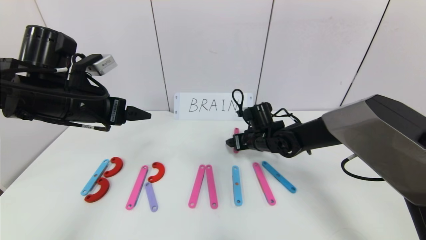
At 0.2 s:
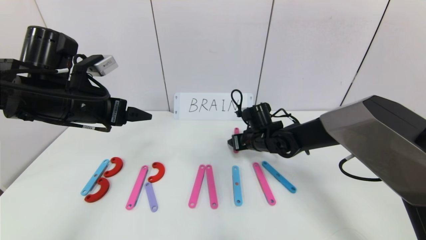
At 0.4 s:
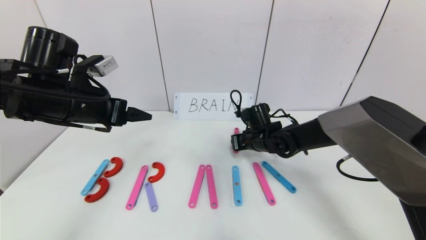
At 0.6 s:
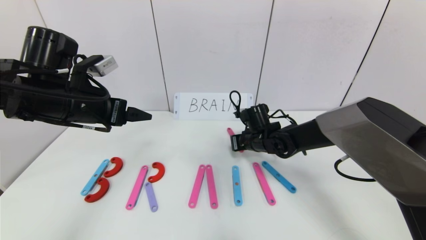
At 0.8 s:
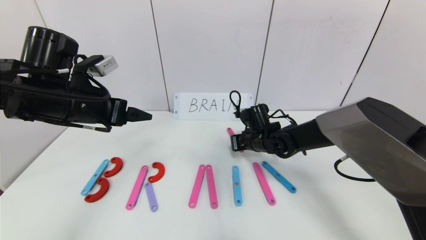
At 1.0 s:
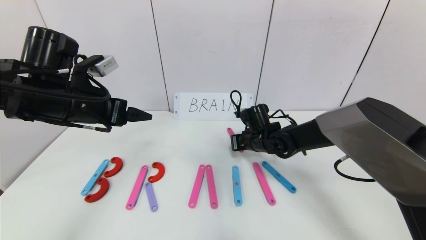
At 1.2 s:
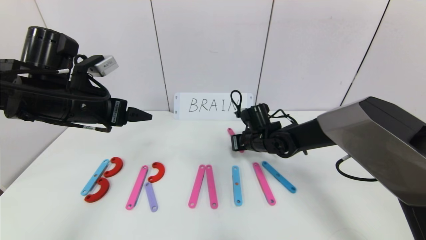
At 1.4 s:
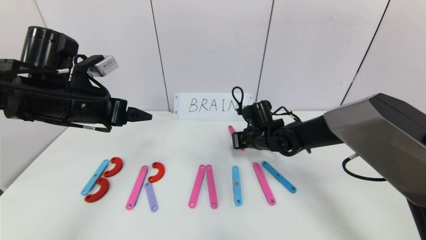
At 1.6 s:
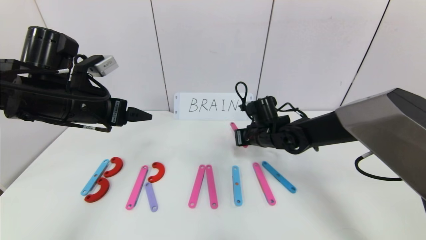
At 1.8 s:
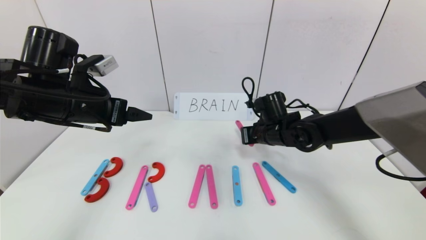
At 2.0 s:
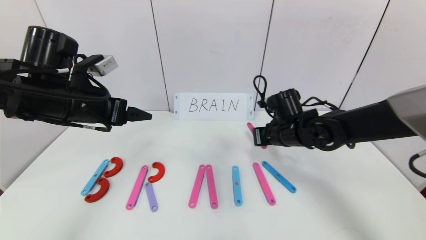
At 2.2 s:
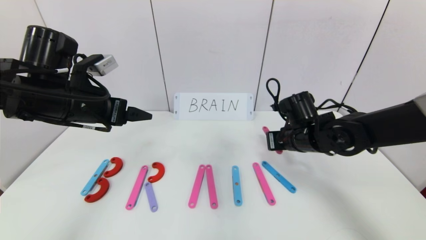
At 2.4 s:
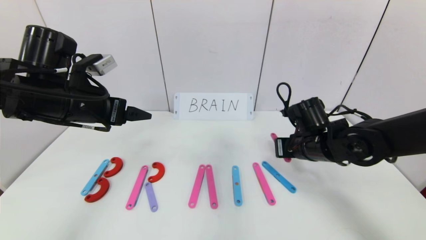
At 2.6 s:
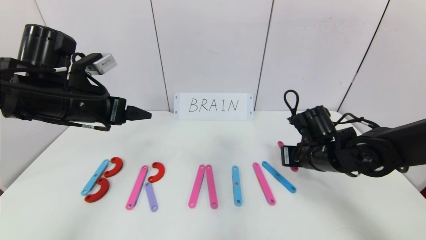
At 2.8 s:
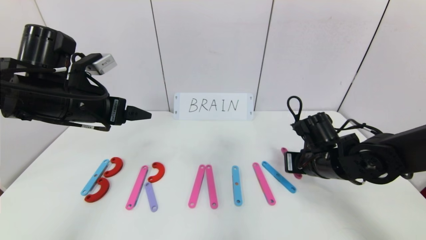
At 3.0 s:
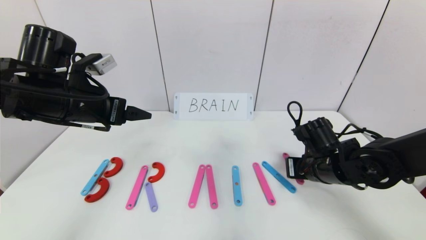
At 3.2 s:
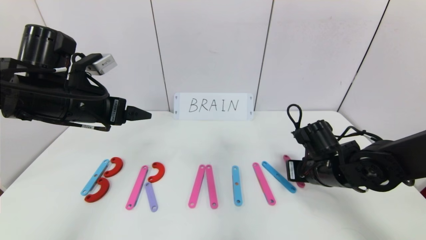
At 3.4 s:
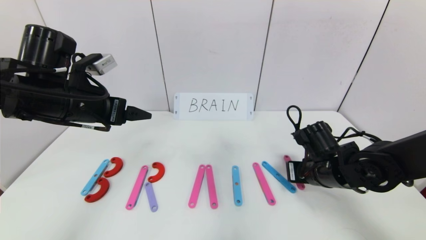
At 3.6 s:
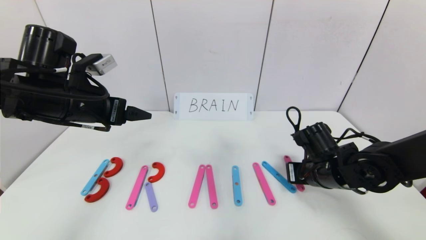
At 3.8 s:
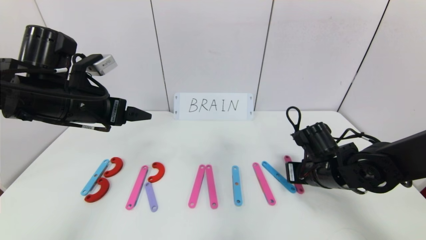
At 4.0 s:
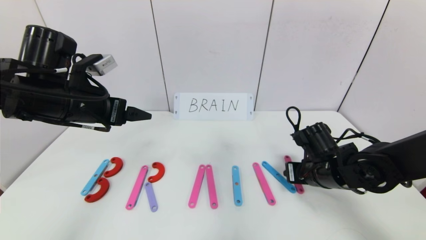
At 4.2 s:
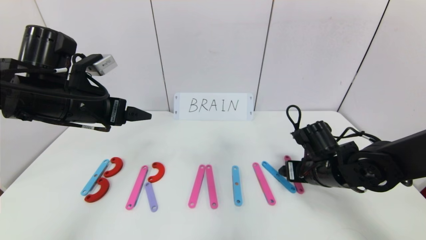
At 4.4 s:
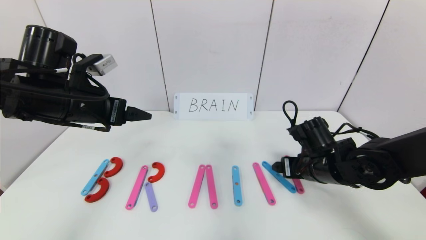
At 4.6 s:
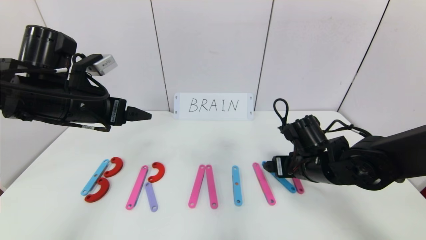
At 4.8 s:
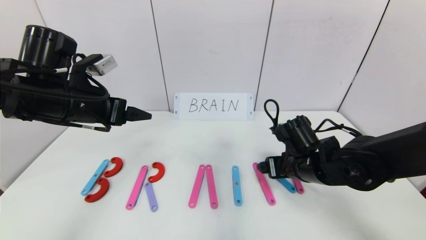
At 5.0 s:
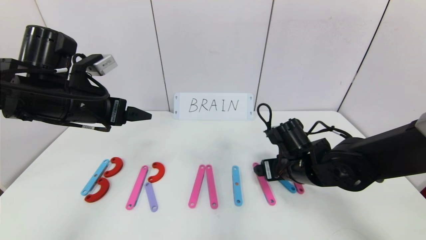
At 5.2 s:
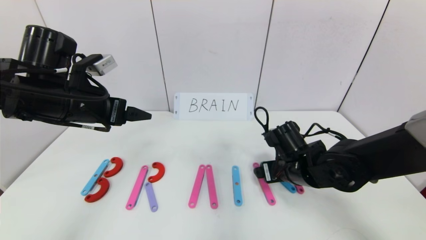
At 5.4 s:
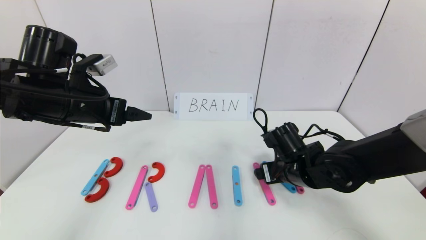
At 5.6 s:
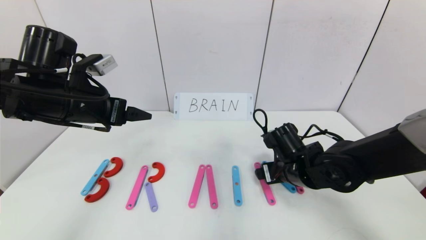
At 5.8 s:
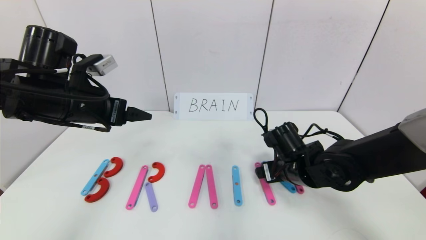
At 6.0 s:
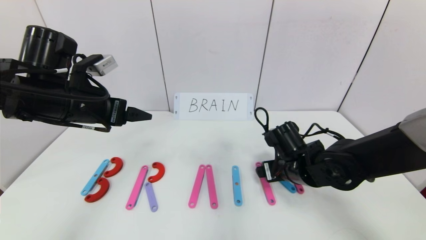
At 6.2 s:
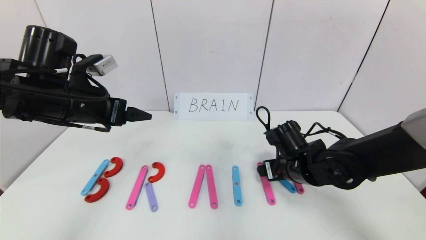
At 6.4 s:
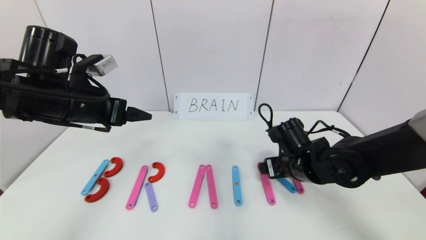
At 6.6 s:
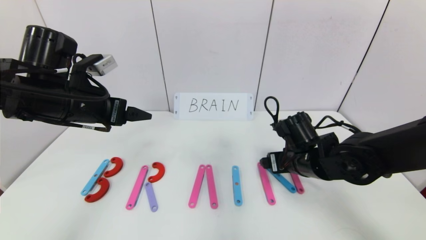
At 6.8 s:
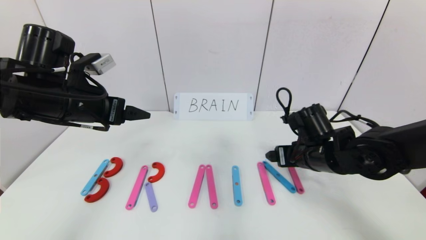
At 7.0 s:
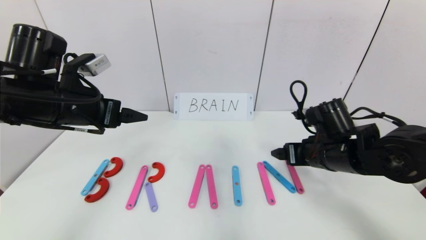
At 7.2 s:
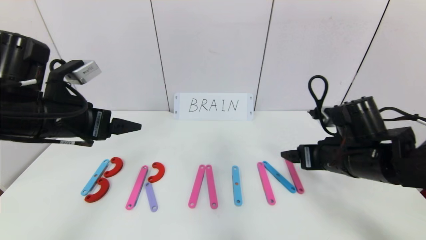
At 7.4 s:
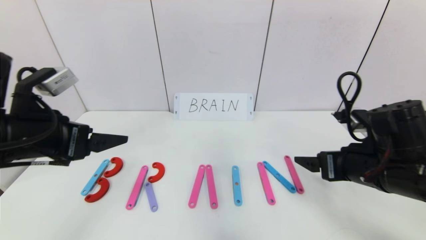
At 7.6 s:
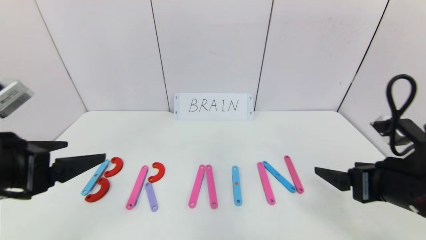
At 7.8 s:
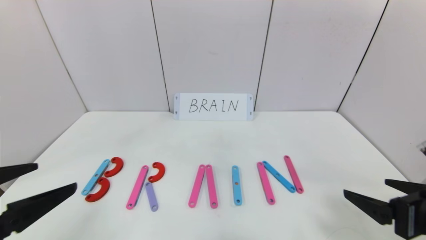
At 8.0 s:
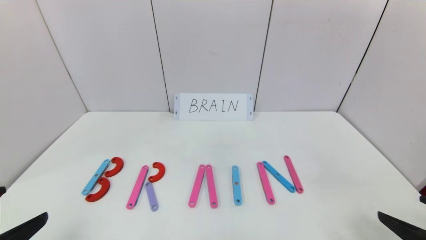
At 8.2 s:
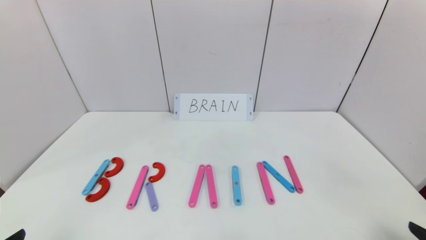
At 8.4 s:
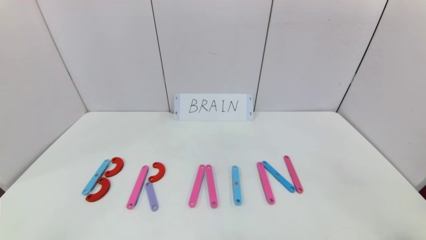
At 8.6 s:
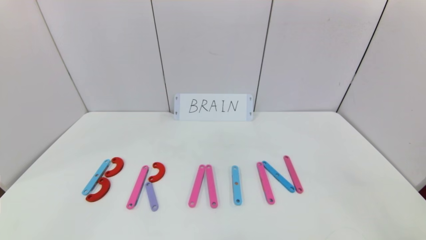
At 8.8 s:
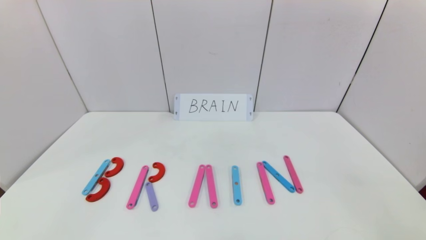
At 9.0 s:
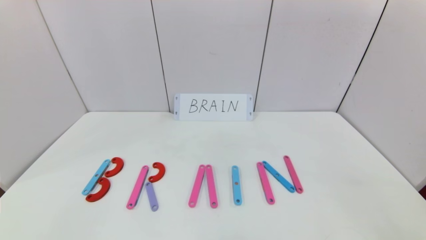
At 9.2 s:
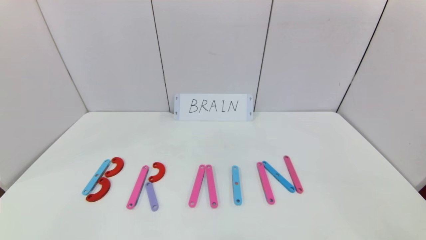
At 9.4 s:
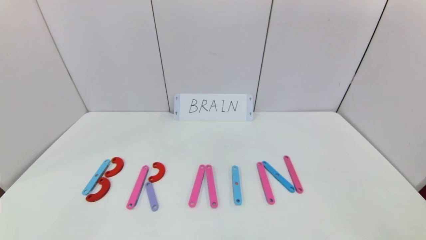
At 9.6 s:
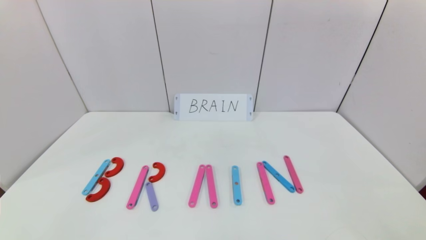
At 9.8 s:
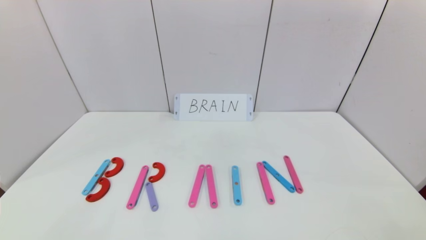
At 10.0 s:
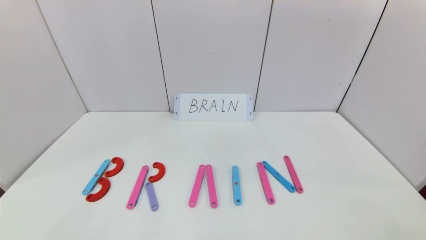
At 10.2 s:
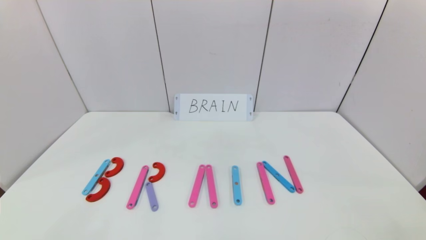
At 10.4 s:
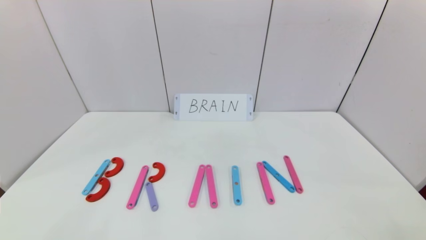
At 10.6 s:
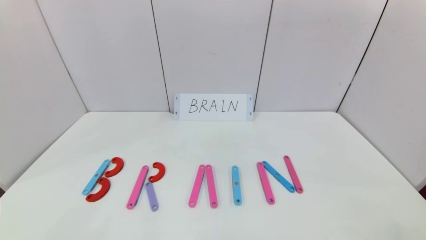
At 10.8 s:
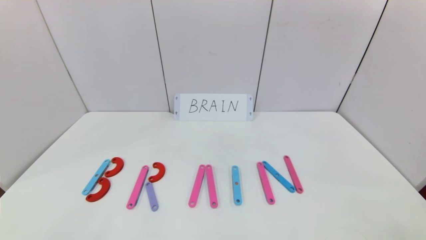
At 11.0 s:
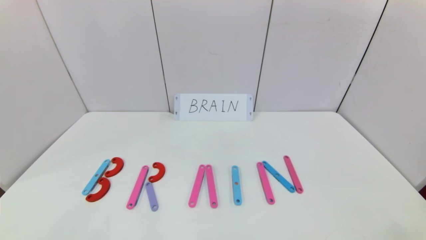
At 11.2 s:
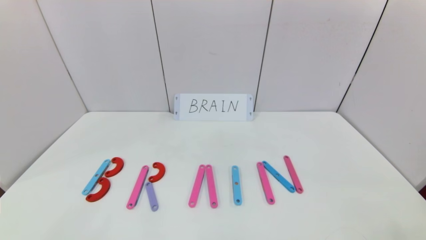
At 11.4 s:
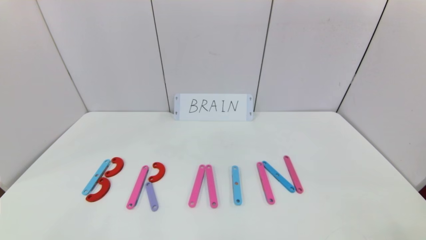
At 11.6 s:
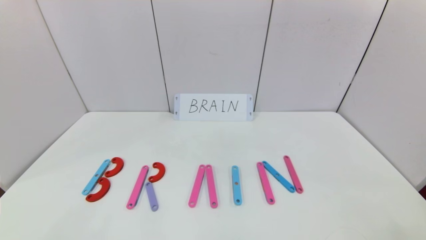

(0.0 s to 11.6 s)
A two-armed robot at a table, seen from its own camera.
Task of the whole recording: rearrange the word baai as brain.
Step, 0.0 s - 6.4 s: Place the character N after character I.
0.0 s - 1.4 s: The right gripper closes its fingers.
1.4 s - 2.8 s: The right gripper travels backward and to the right by about 15 cm.
2.8 s - 4.4 s: The right gripper opens its fingers.
4.4 s - 5.8 s: The grippers move only a little.
5.8 s - 7.2 s: The right gripper is displaced upward and to the right by roughly 10 cm.
7.2 s - 8.8 s: The right gripper is displaced backward and to the right by some 30 cm; the left gripper travels backward by roughly 30 cm.

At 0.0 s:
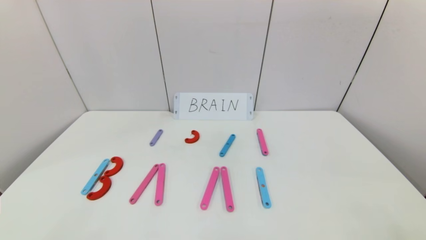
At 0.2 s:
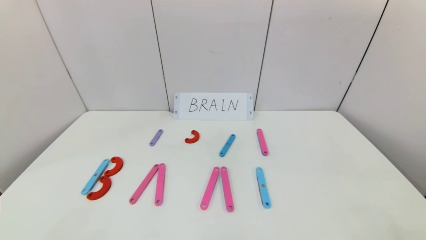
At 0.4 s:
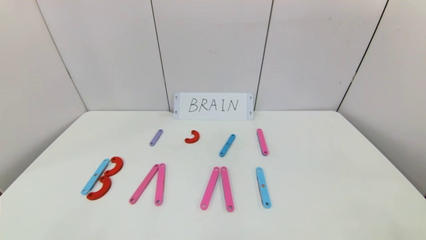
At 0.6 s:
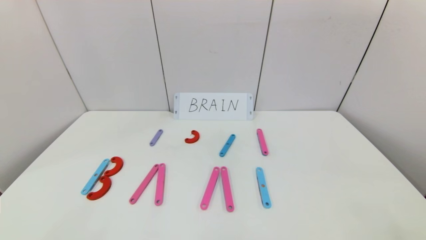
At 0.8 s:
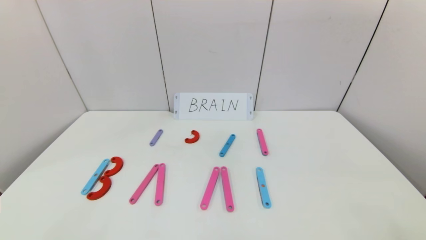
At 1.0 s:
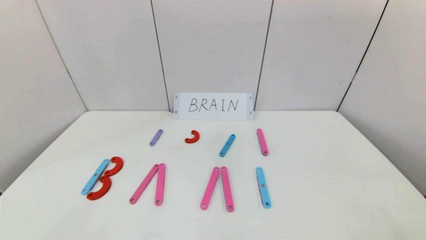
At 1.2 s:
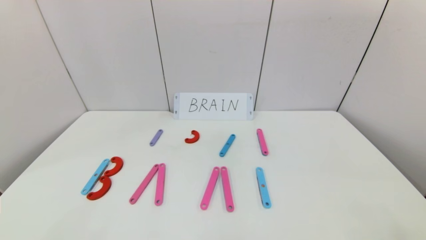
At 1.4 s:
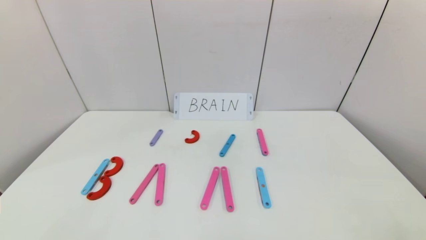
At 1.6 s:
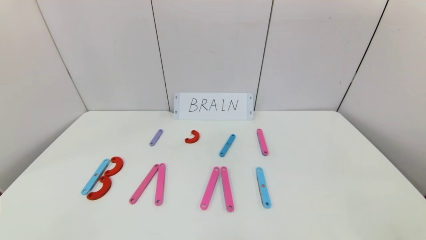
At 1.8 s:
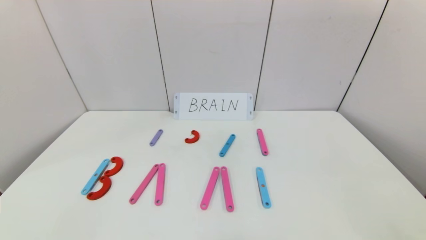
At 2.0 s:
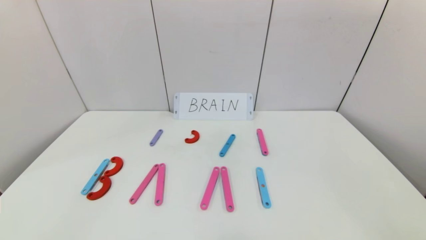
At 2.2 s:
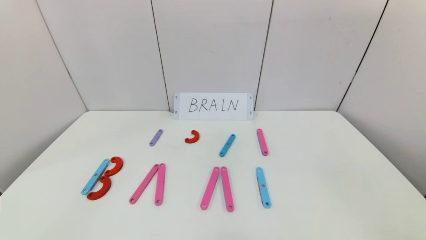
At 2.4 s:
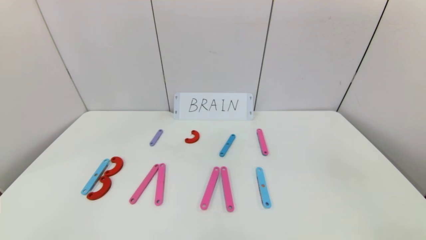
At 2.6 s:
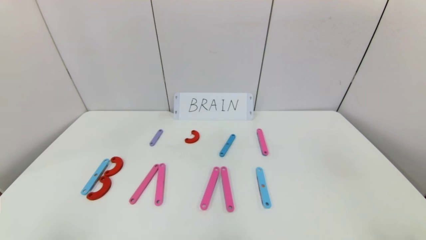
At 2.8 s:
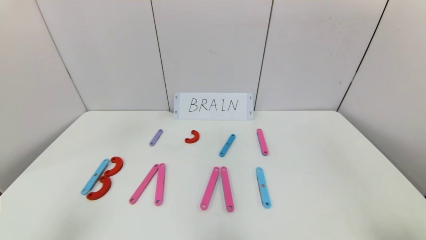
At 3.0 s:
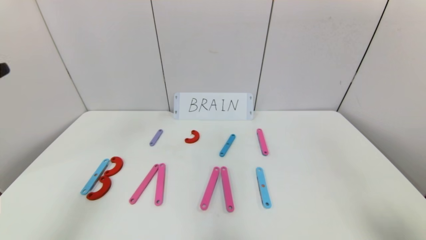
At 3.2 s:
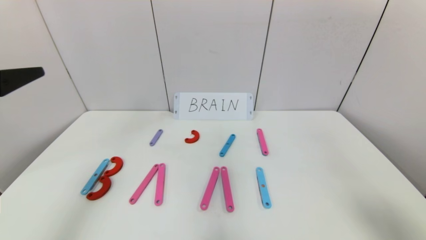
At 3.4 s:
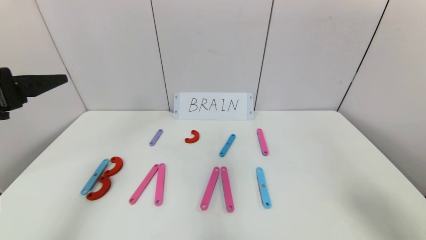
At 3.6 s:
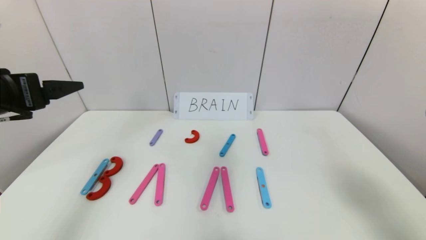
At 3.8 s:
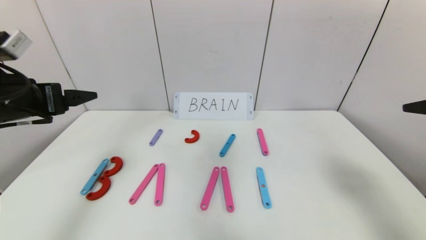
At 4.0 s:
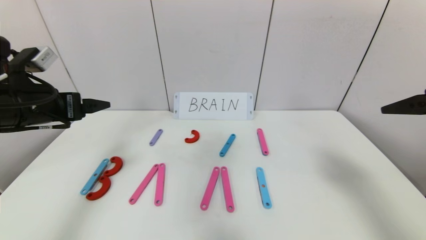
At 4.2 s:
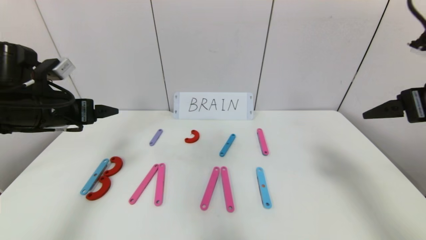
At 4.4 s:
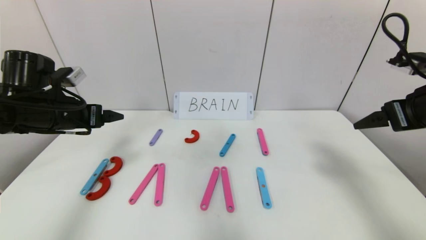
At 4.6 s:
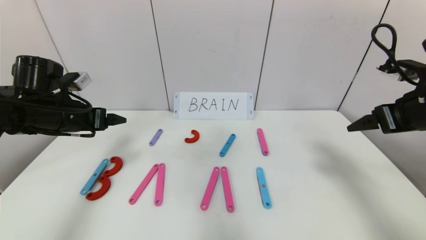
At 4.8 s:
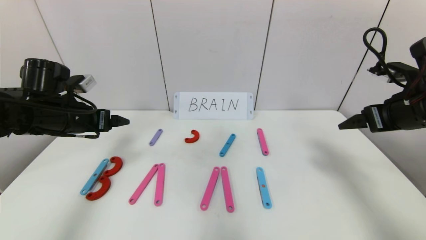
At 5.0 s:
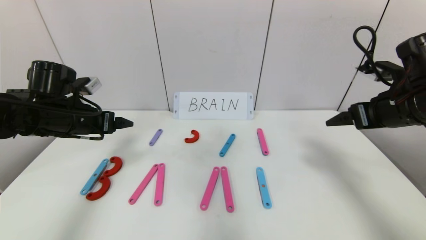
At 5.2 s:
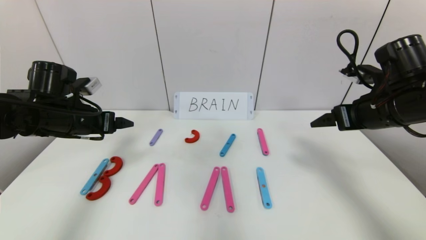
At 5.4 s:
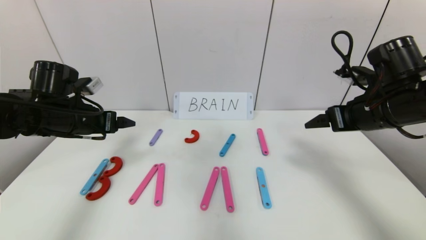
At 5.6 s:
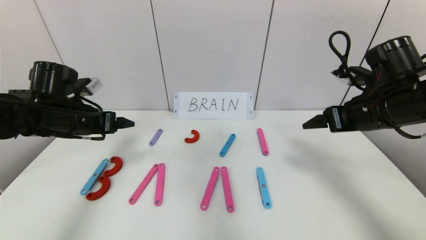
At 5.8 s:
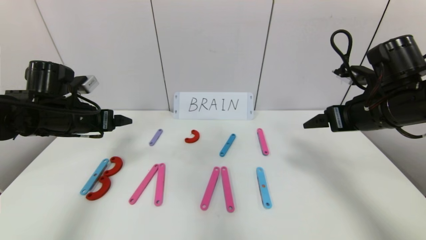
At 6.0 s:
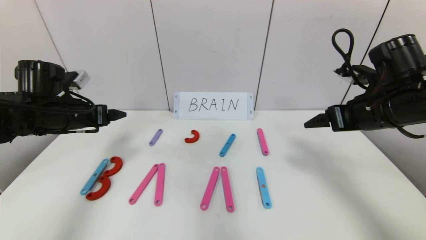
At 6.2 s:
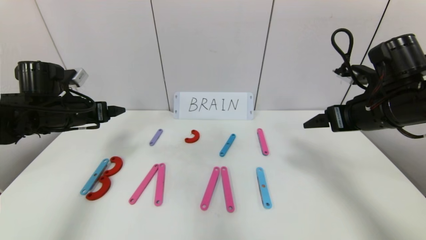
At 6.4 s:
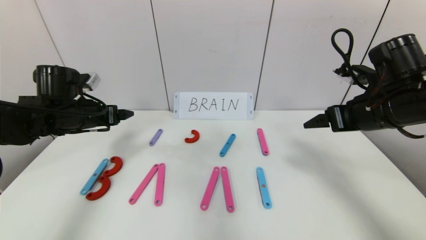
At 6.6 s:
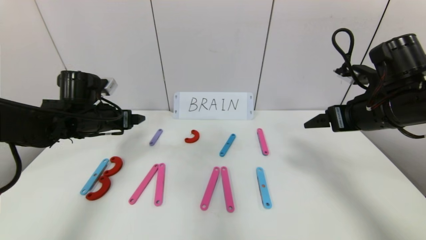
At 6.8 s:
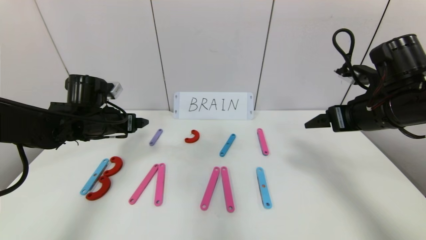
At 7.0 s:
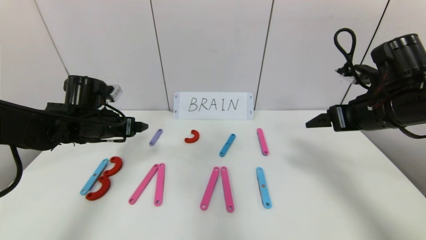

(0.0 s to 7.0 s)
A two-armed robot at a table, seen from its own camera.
Task of the whole recording: rearrange the word baai as brain.
2.8 s - 4.2 s: Both grippers travel together forward, about 20 cm.
4.2 s - 5.6 s: The left gripper moves some 5 cm, while the right gripper shifts approximately 10 cm forward, downward and to the left.
5.6 s - 7.0 s: There are only small adjustments of the grippers.
